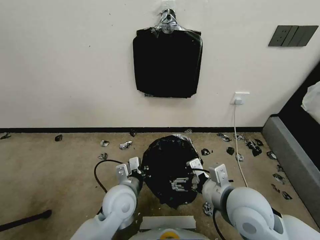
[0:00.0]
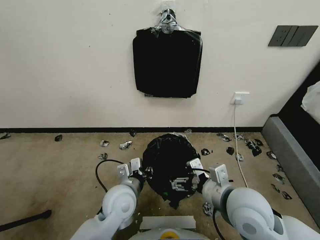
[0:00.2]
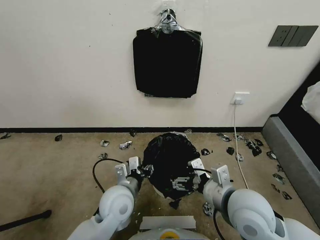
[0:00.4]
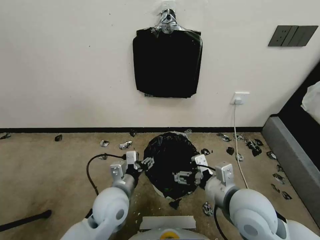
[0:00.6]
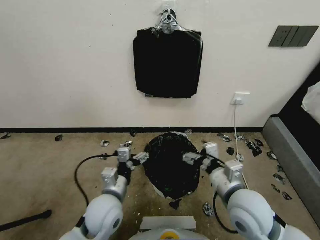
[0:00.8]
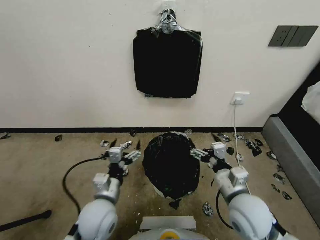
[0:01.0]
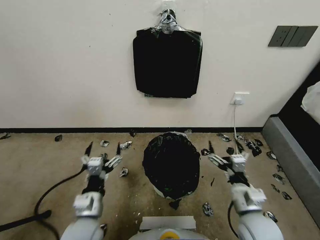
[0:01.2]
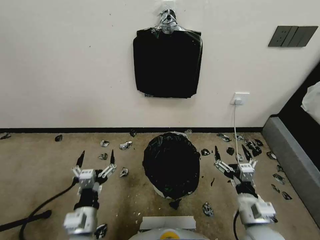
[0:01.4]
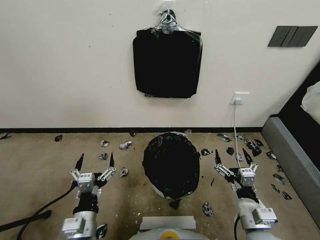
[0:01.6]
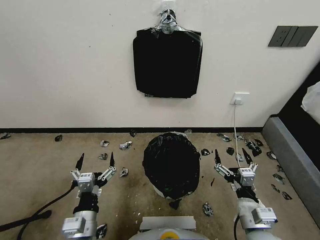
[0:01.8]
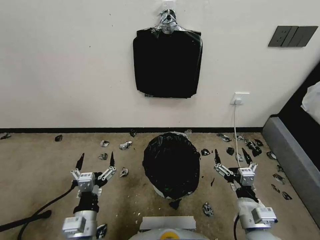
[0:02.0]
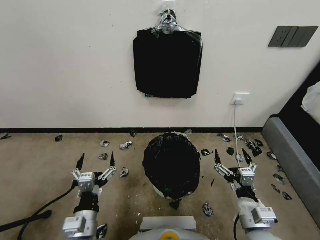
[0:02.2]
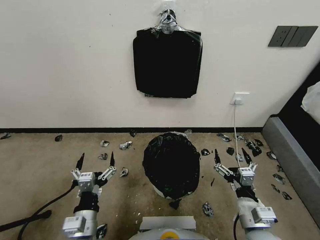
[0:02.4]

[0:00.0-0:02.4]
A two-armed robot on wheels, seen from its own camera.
Task of the whole recording: Place a trash bag onto the trash bin.
0:00.0 to 0:01.2: The left gripper heads to the left and backward, covering some 10 cm, and opens up. The right gripper shifts some 10 cm downward and to the right.
0:01.2 to 0:02.4: The grippers make only small movements.
